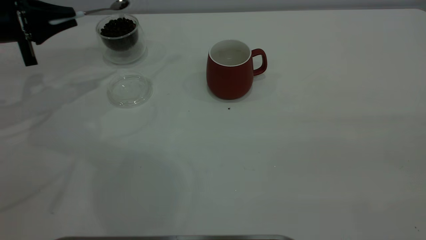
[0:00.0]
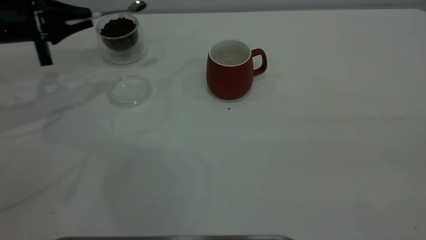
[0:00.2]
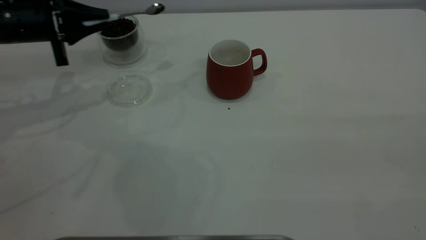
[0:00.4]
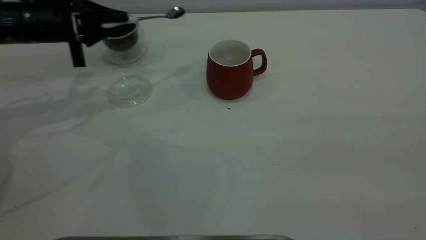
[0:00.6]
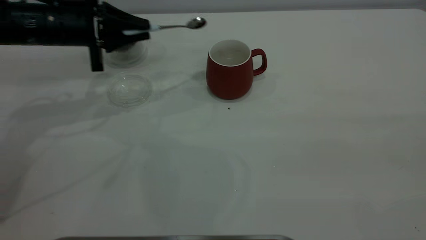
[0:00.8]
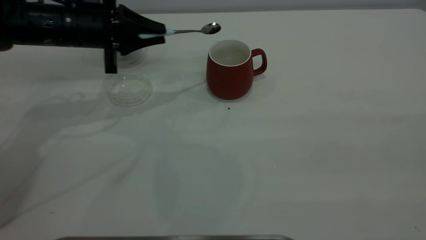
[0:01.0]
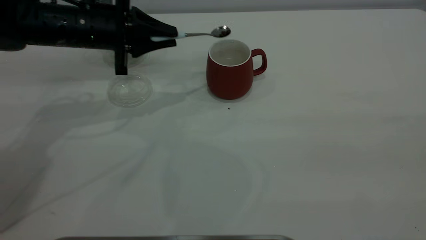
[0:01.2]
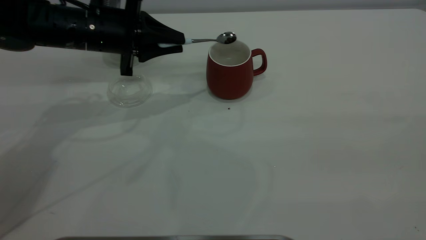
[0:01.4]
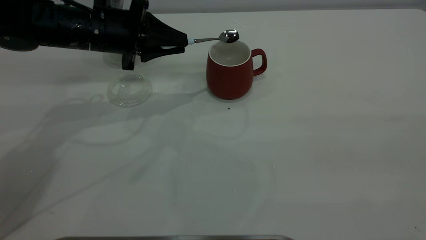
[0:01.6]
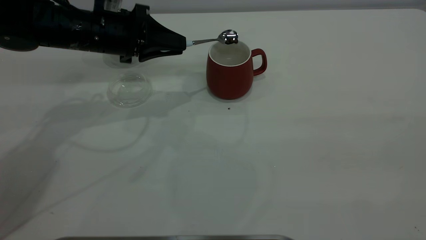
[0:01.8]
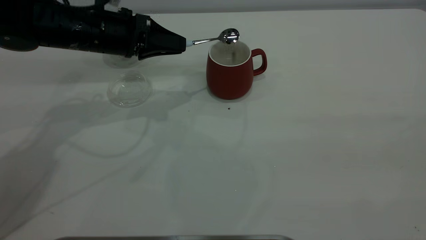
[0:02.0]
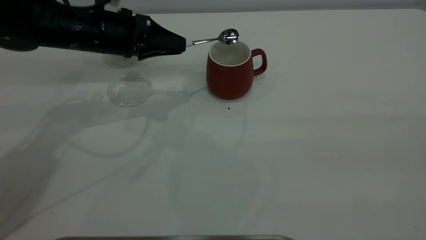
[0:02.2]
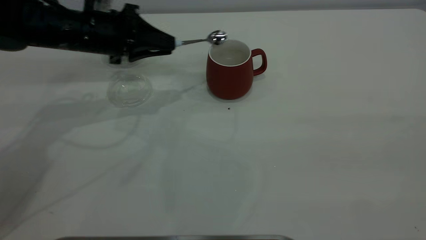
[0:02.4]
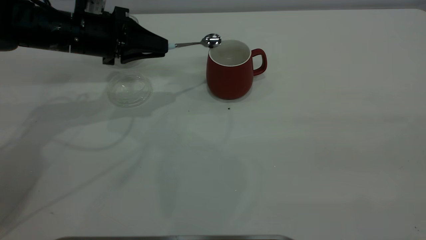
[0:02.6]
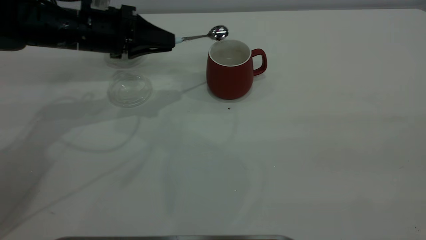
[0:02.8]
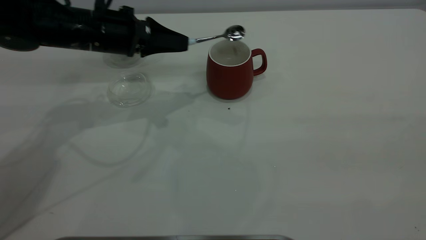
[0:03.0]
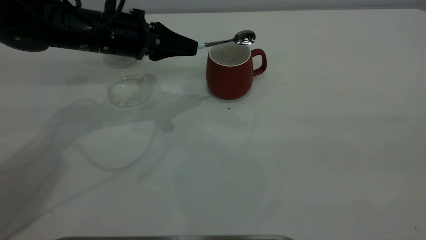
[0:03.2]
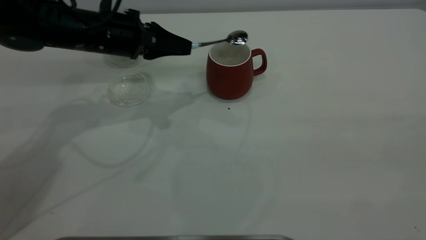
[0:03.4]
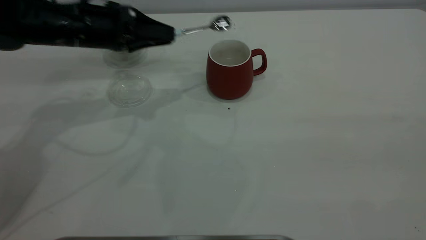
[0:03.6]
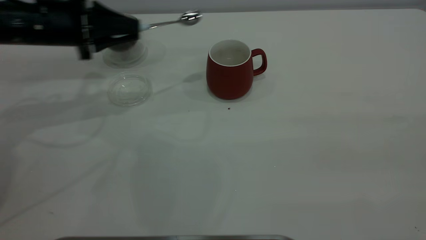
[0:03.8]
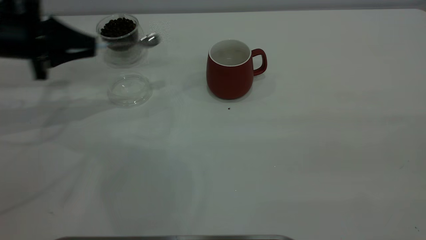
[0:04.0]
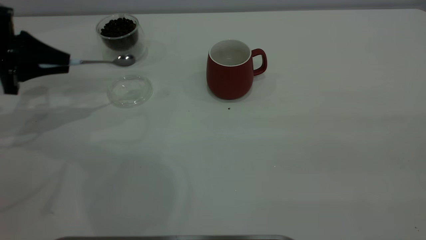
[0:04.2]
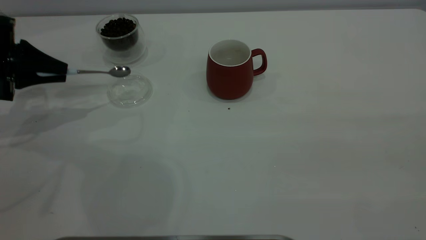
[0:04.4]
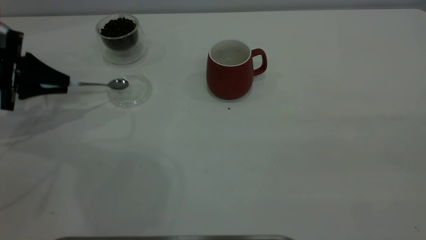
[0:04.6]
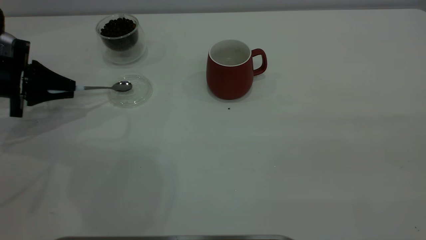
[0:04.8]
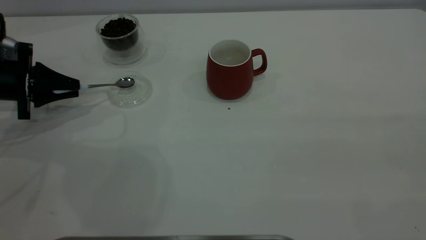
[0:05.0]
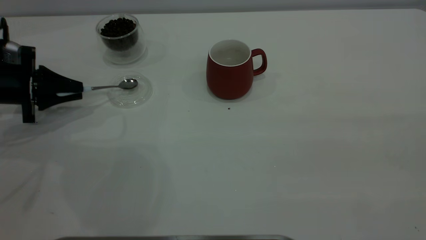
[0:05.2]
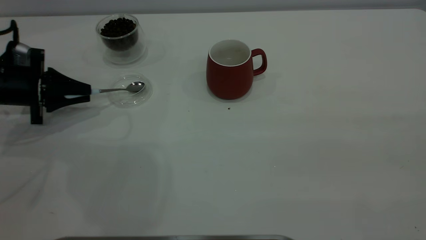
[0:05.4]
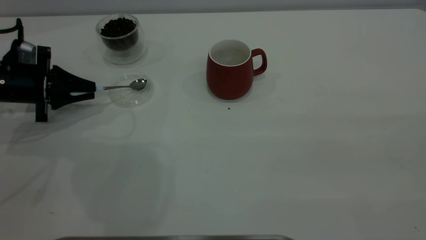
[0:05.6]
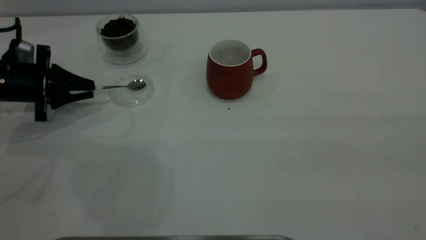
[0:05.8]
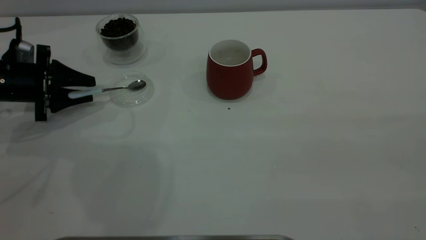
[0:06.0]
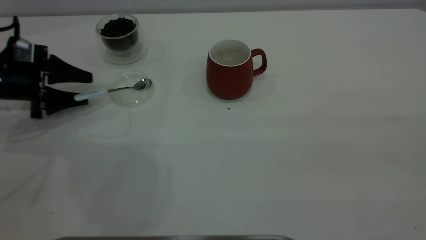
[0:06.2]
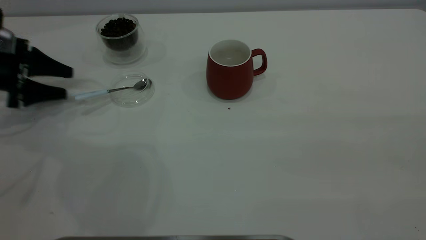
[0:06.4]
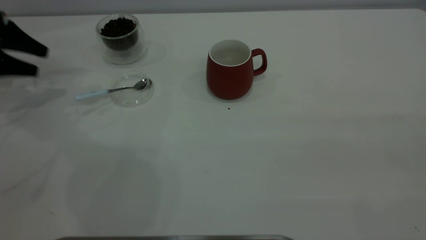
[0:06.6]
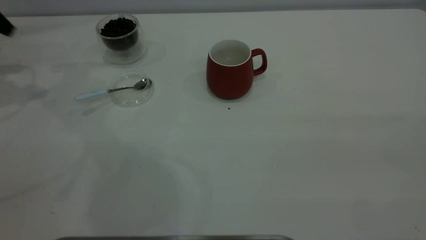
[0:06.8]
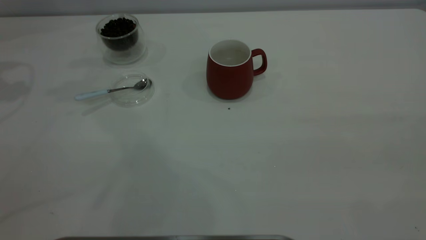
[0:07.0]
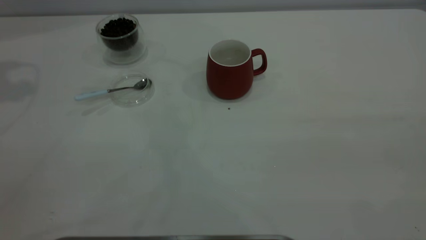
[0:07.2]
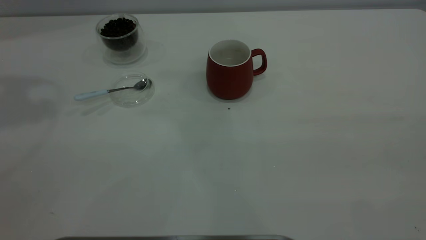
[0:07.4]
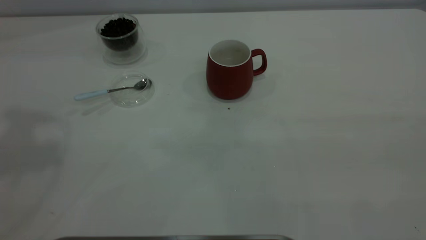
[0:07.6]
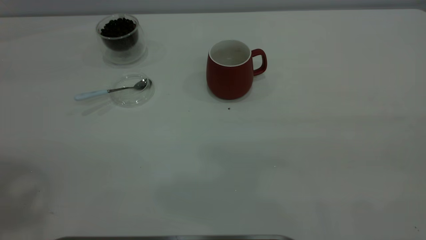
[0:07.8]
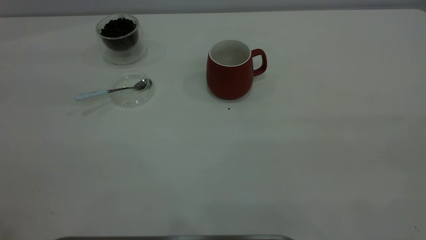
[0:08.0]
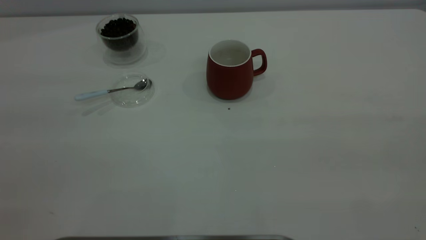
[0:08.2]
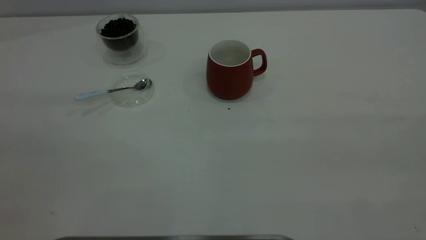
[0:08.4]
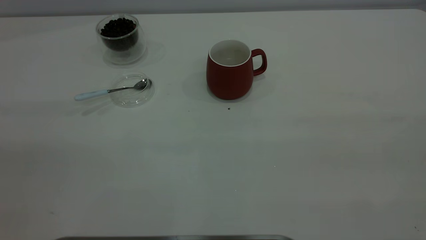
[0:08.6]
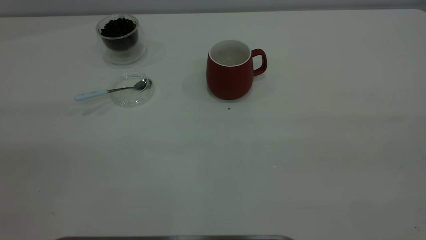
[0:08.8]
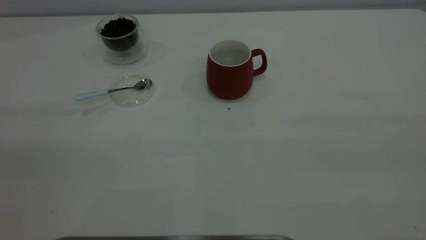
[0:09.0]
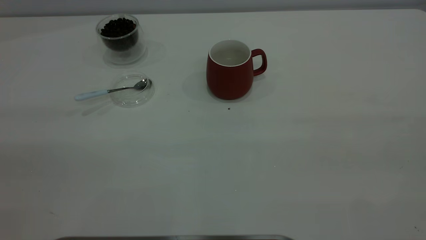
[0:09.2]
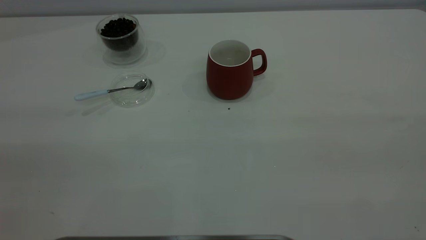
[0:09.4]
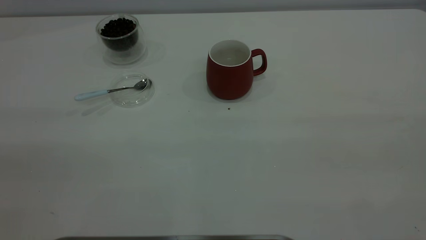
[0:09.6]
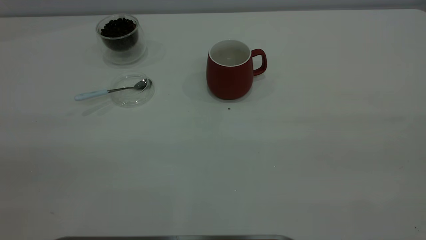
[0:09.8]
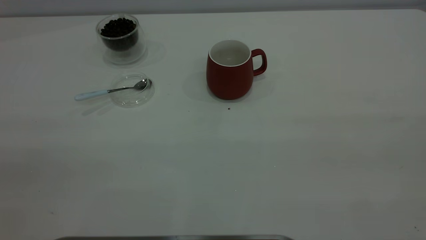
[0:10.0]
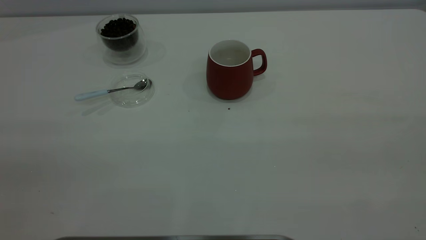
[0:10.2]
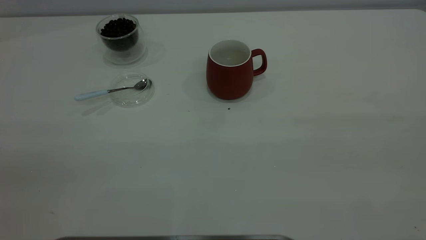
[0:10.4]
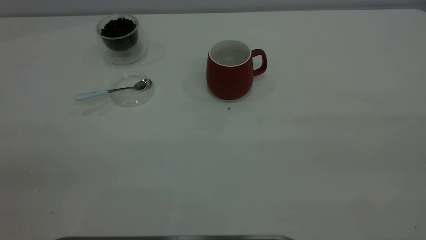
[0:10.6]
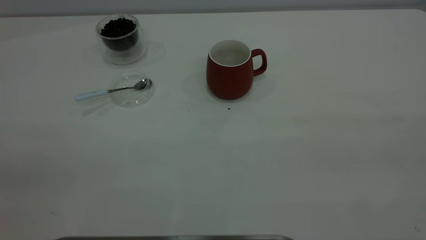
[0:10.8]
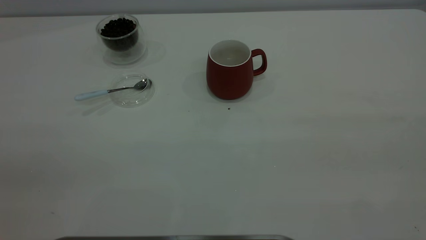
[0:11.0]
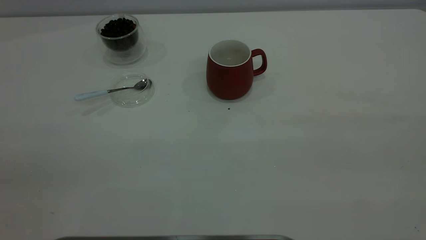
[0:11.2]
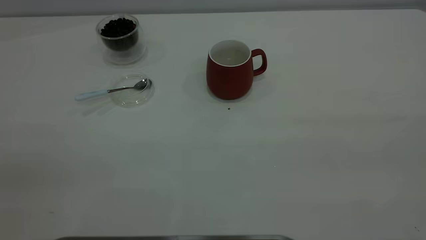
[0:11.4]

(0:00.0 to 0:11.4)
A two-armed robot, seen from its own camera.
Task of the whole recording: the right gripper place the red cup in the center of the table, the left gripper take the blue spoon from the cup lid and scoop out the coffee beans from the coffee cup and put them into the red cup, the left gripper put the spoon back into the cup lid.
Step, 0:00.0 - 0:03.4: Scoop a spoonful of beans into the cup.
Step, 0:03.6 - 0:06.2: Place the spoon back in its original place.
0:00.0 - 0:01.4: The left gripper travels to the right by some 15 cm.
0:02.8 - 0:04.2: The left gripper moves to the left, about 15 cm.
0:04.2 - 0:05.6: The left gripper shifts some 5 cm downward.
0:05.6 - 0:07.2: The left gripper moves upward, some 35 cm, and opens its fingers.

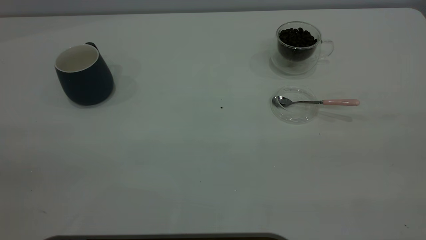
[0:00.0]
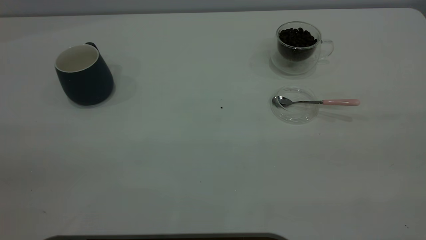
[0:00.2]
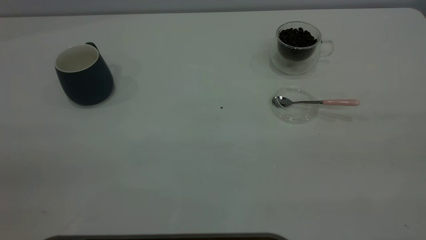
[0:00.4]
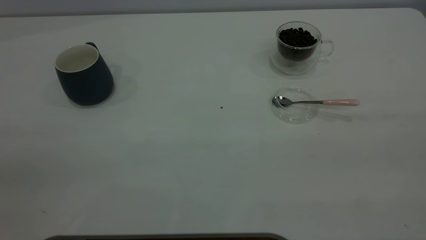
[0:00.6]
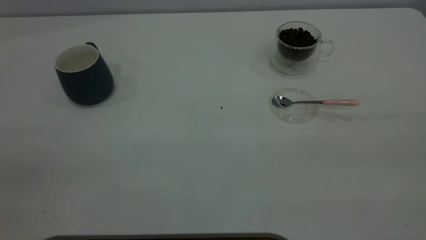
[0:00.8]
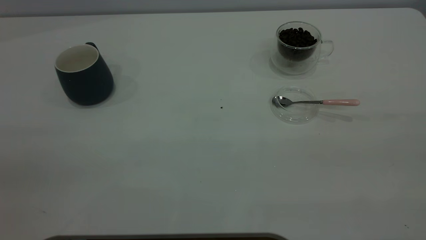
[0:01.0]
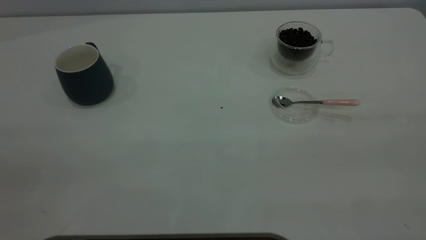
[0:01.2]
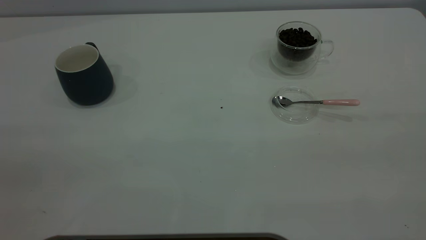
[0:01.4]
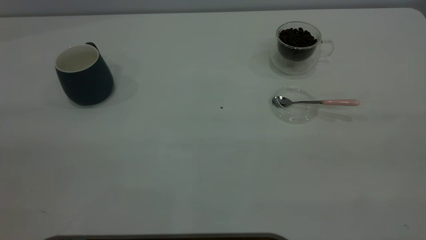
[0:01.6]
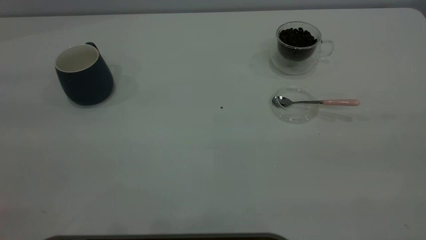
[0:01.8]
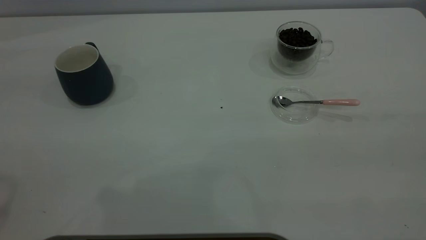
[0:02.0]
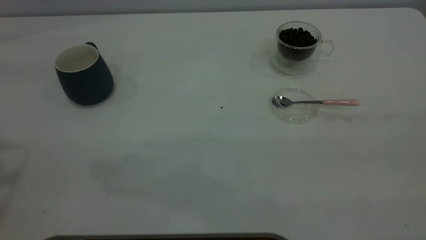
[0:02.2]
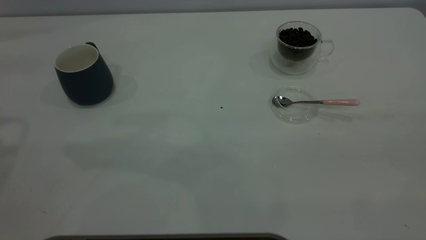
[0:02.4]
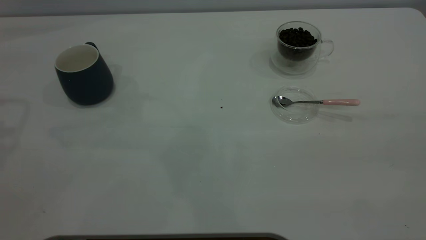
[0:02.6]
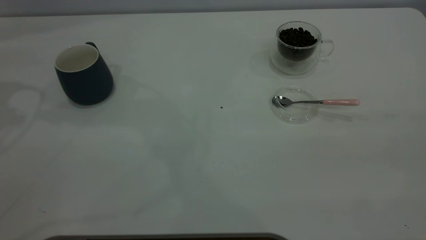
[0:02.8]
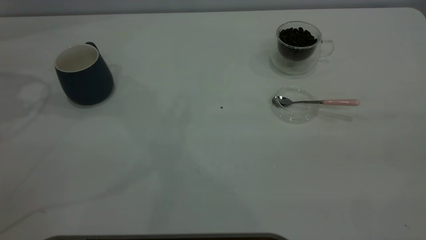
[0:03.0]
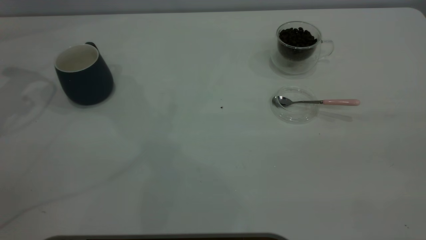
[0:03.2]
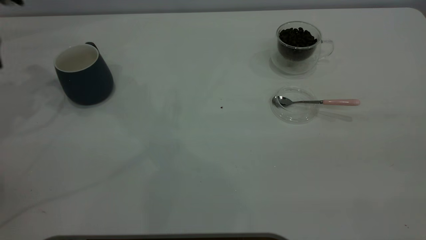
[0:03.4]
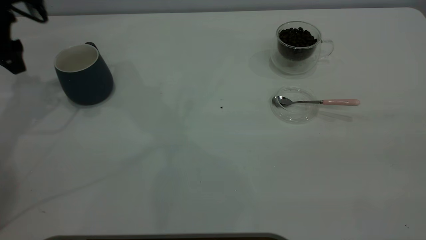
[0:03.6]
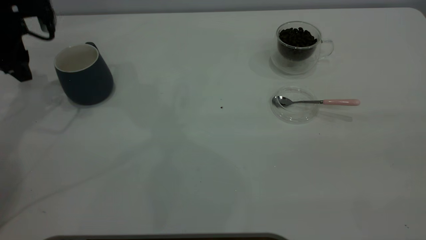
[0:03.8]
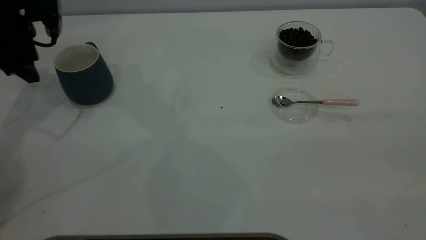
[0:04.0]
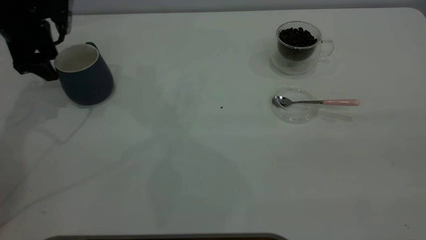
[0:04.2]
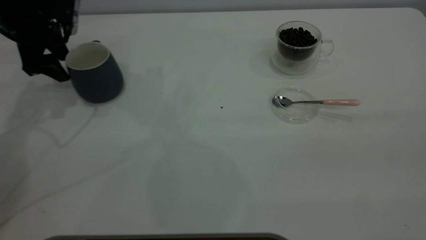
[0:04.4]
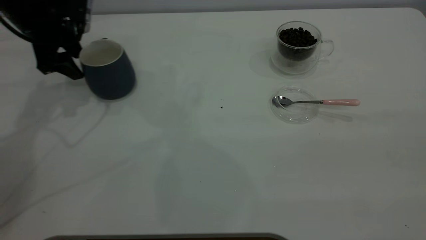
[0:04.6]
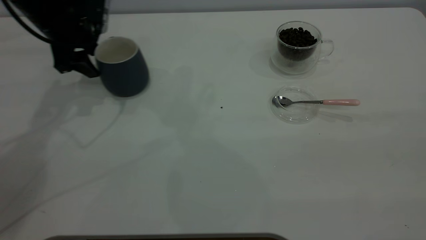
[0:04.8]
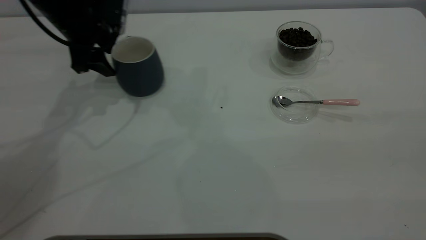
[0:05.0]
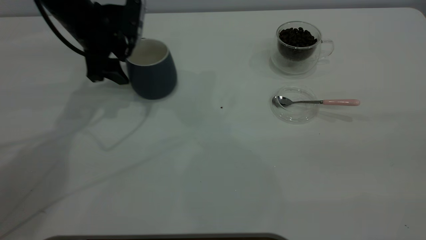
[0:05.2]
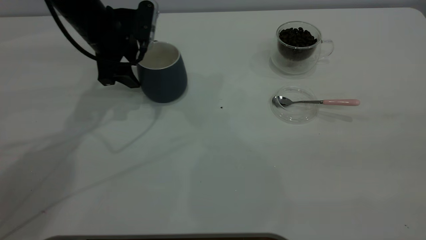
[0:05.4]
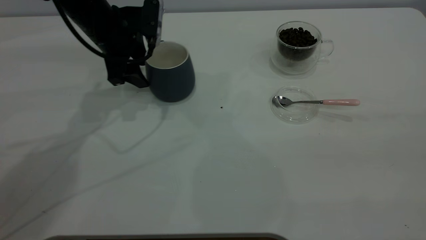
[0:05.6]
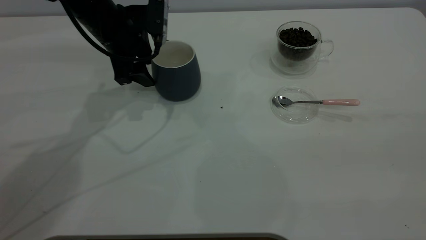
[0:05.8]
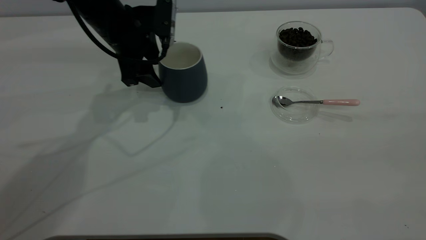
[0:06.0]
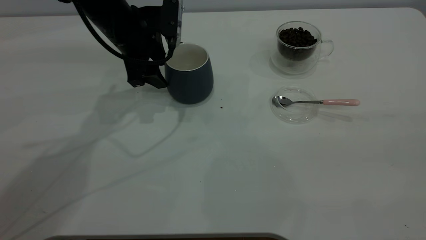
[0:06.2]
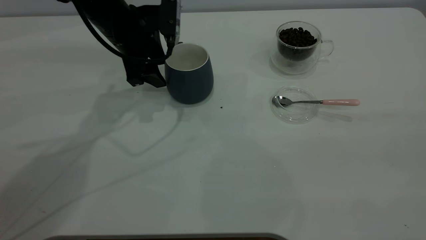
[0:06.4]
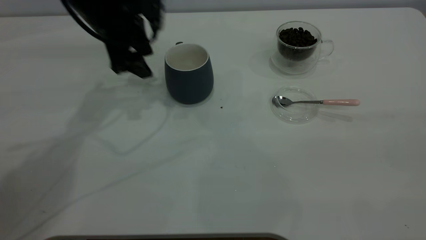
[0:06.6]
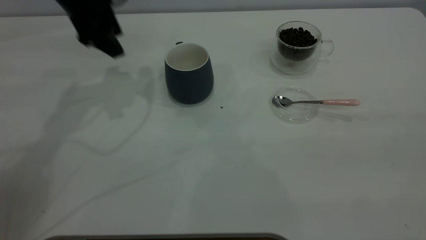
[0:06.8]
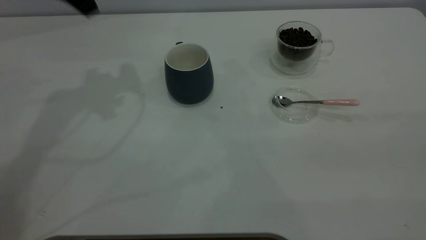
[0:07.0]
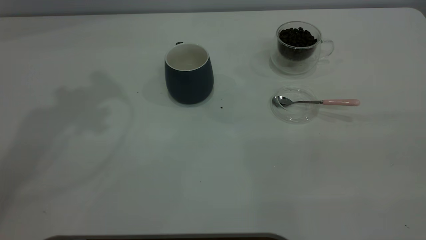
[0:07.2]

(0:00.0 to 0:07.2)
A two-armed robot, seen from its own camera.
Task of the whole recording: the left gripper place the grey cup in the center of the table, the right gripper take the pink spoon from the cup lid and scoop out the coffee beans from the coffee cup and put them into the grey cup, the right gripper put the spoon back into the cup lid.
Step, 0:00.0 - 0:06.4: Move the cup to the center of view.
0:00.0 - 0:01.4: The two grippers keep their place.
0:02.8 - 0:04.4: The left gripper moves downward, to the right and forward, some 15 cm.
0:04.4 - 0:05.8: The left gripper moves to the right, approximately 15 cm.
0:05.8 - 0:07.2: The left gripper shifts some 25 cm upward.
